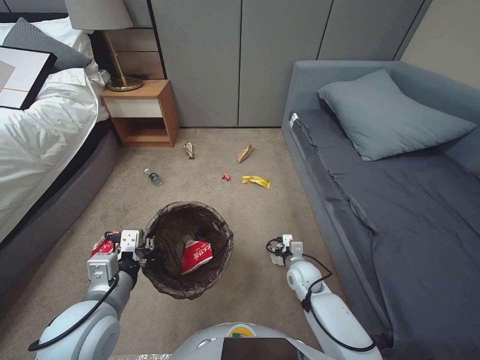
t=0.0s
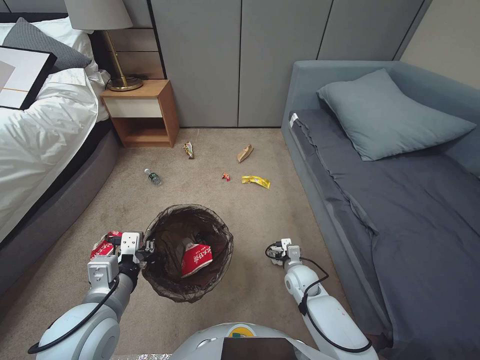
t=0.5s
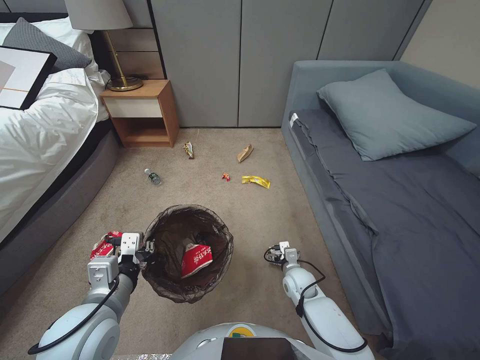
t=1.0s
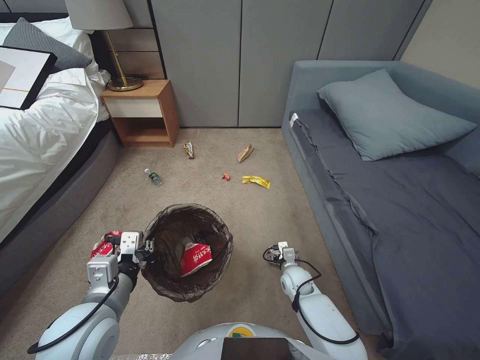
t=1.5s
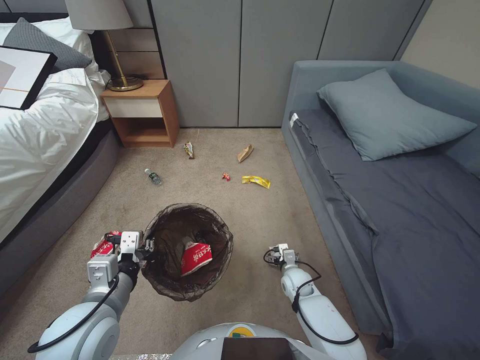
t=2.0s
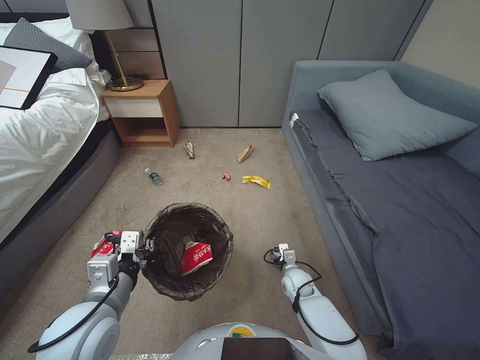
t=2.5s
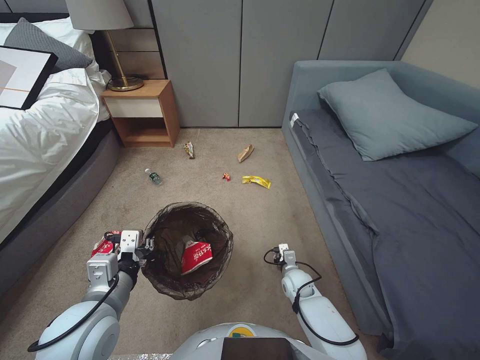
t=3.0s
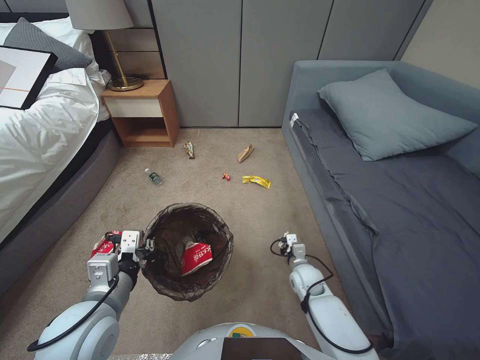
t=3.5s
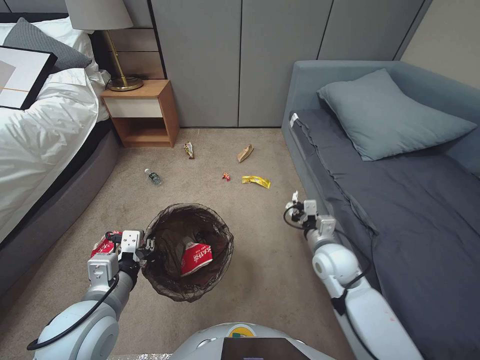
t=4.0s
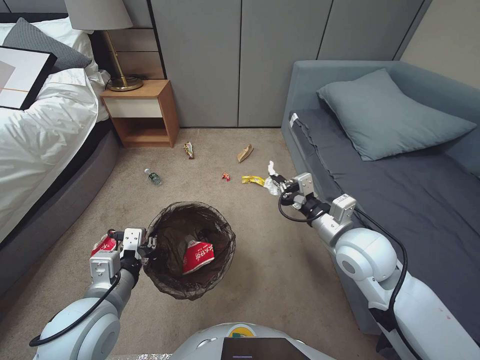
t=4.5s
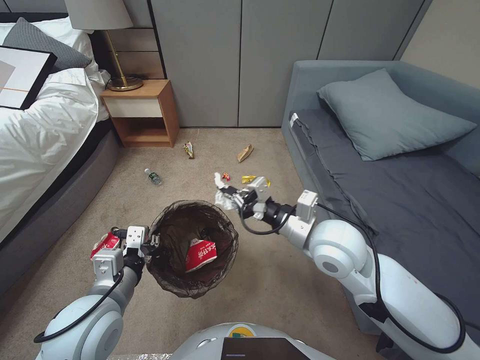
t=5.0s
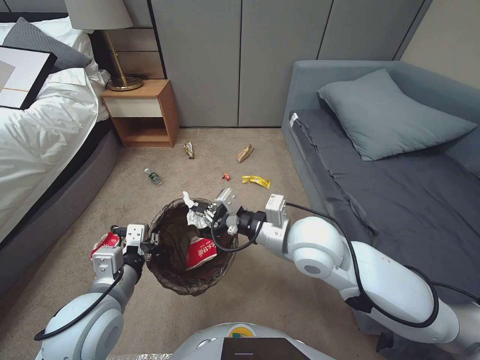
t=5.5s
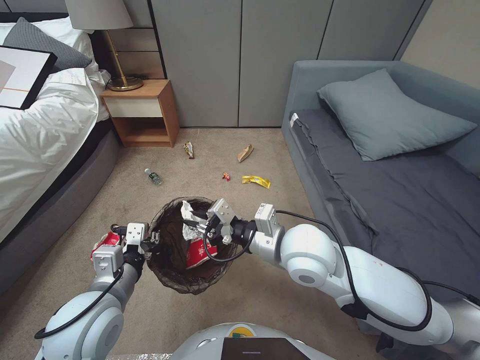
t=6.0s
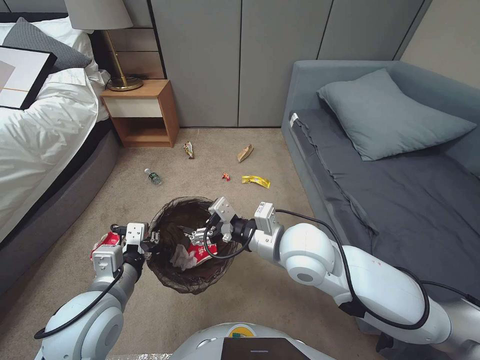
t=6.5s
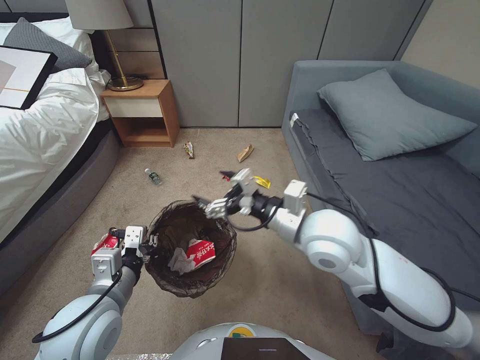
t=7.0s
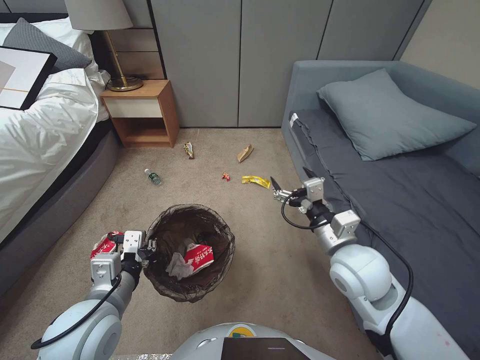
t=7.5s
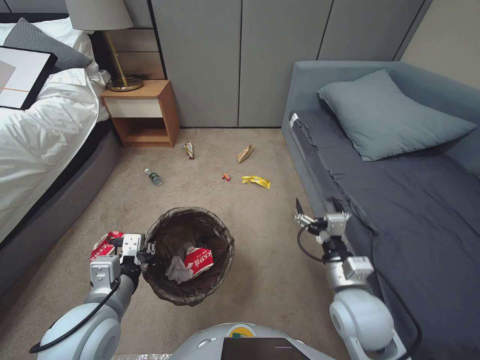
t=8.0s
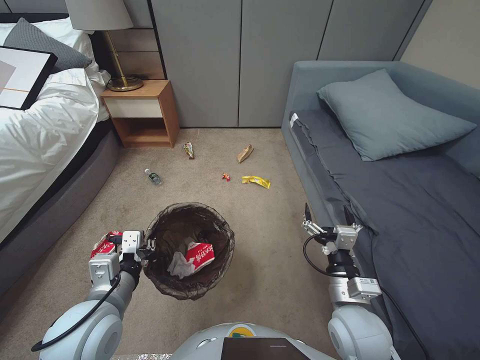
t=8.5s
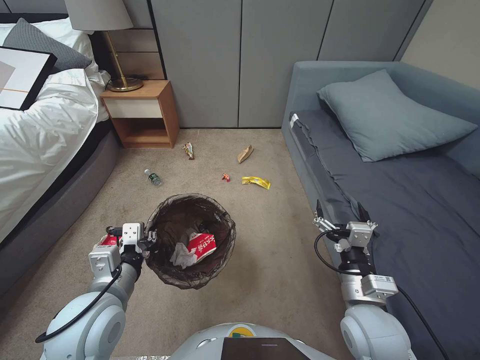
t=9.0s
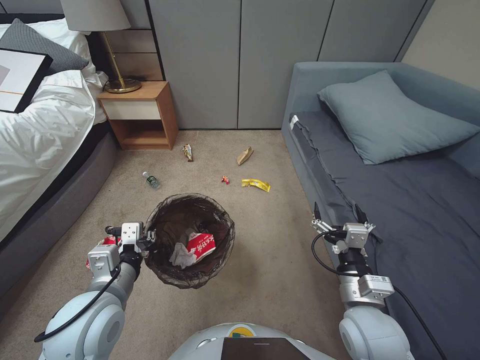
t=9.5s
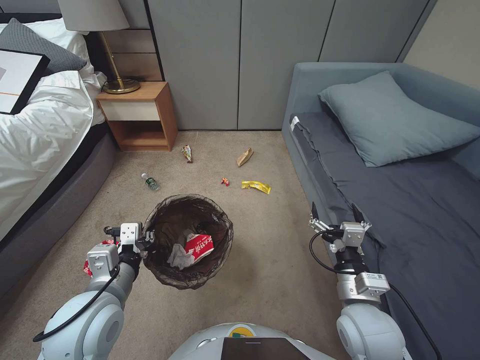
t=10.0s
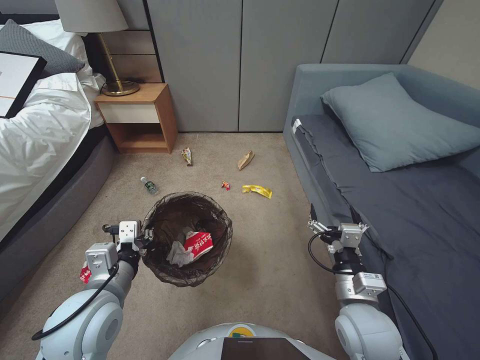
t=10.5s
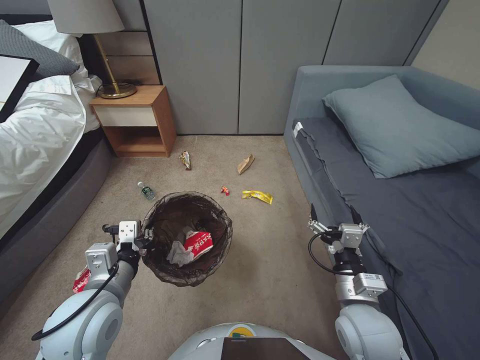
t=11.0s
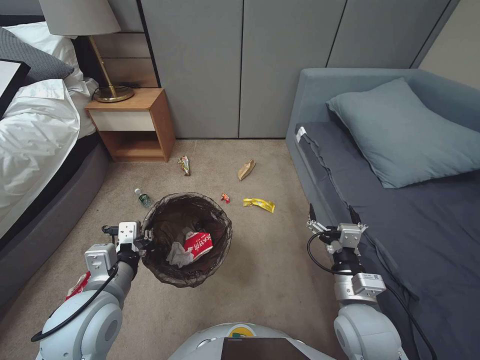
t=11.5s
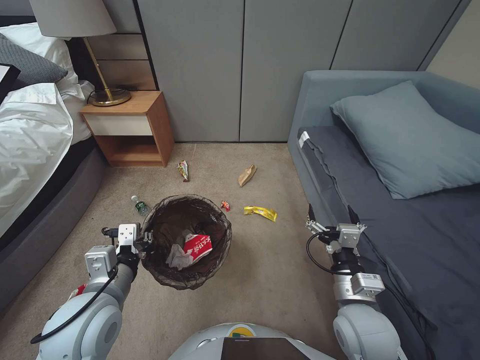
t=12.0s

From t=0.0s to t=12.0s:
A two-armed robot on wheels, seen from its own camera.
Task of the whole recording: Pick up the trash bin, then pick up the garbage from the floor and place it into the trash bin.
From t=0.0s to t=2.0s: The right gripper is displaced downward by roughly 5 cm.
From t=2.0s to t=4.0s: The right gripper heads upward, covering roughly 20 cm, and closes.
From t=4.0s to t=6.0s: The right gripper heads upward and to the left, covering approximately 20 cm.
From t=6.0s to t=8.0s: The right gripper goes roughly 15 cm to the right, downward and backward, and opens its fingers.
From t=8.0s to t=10.0s: The grippers make only small movements.

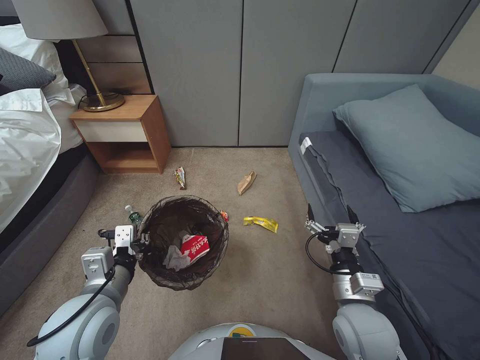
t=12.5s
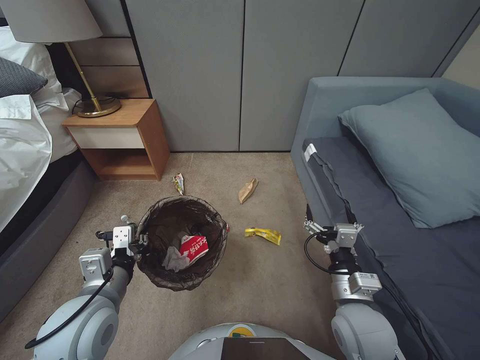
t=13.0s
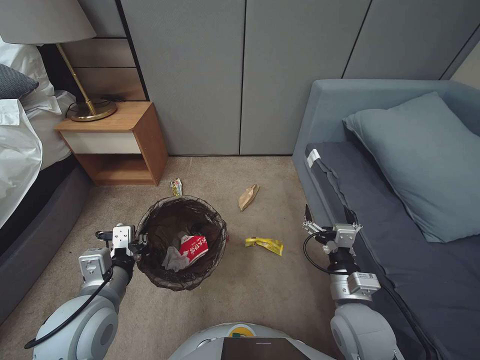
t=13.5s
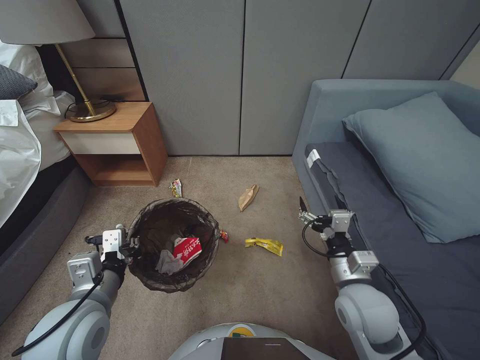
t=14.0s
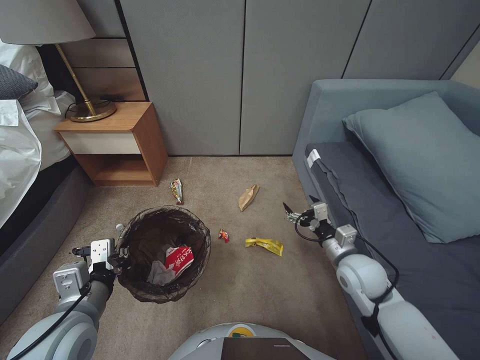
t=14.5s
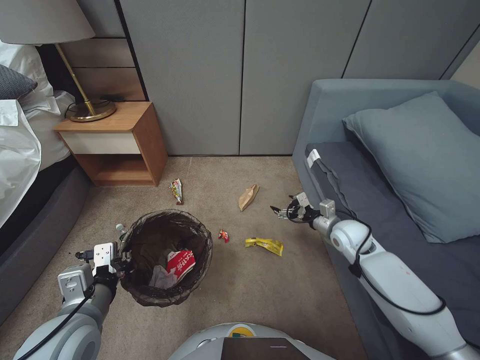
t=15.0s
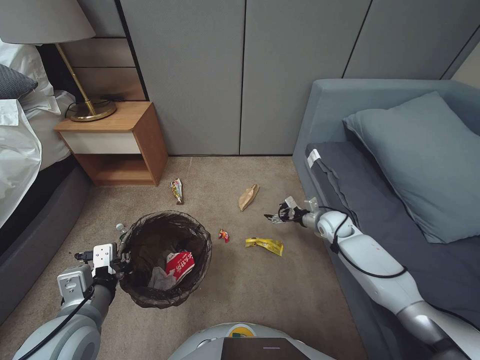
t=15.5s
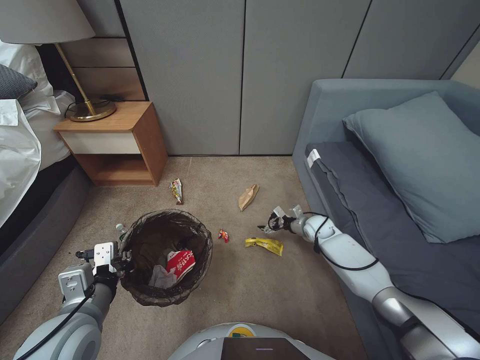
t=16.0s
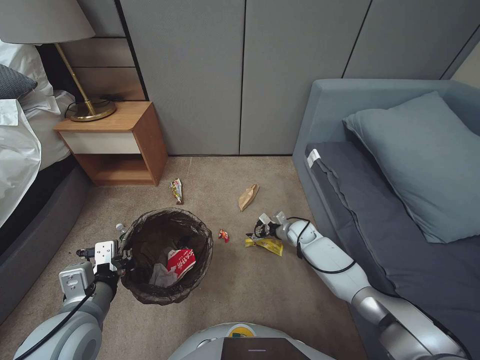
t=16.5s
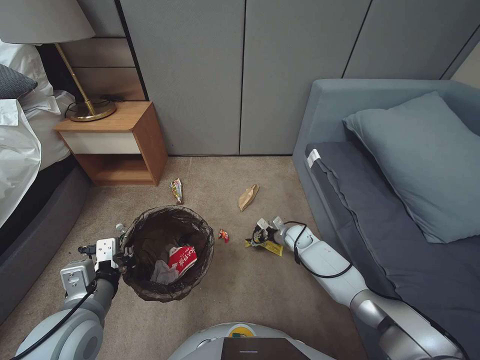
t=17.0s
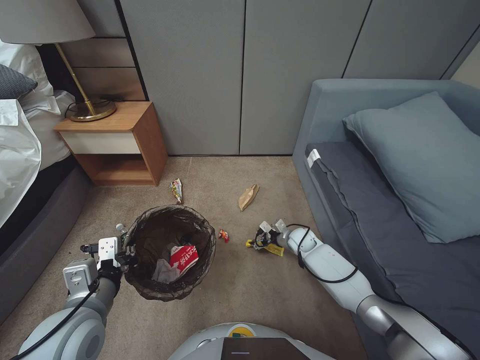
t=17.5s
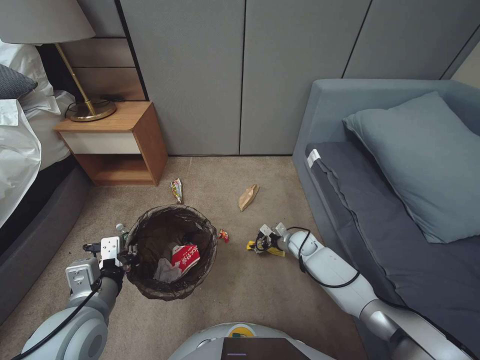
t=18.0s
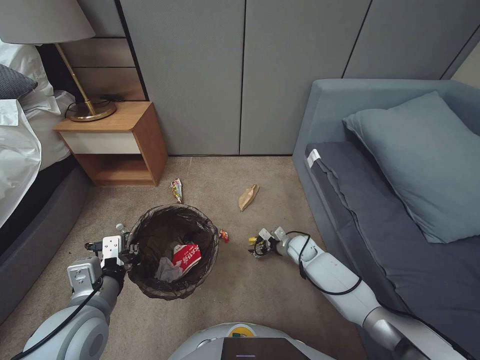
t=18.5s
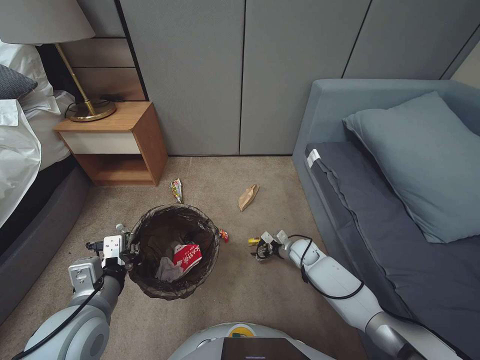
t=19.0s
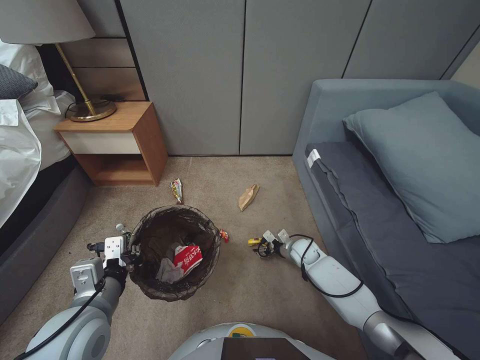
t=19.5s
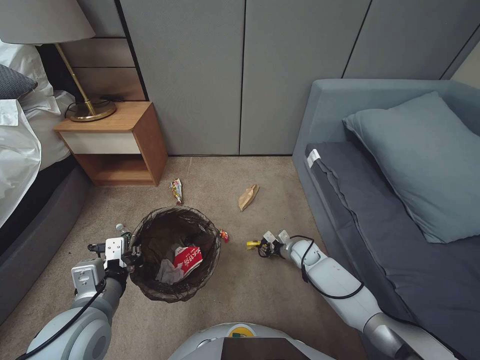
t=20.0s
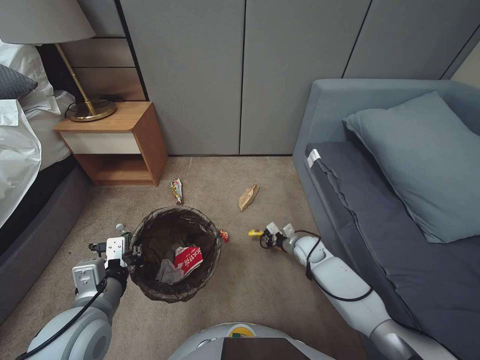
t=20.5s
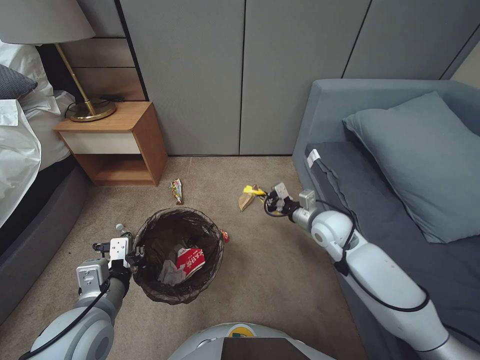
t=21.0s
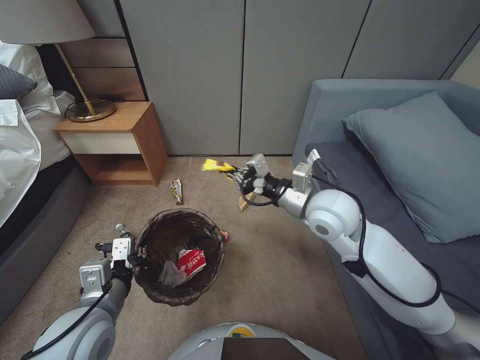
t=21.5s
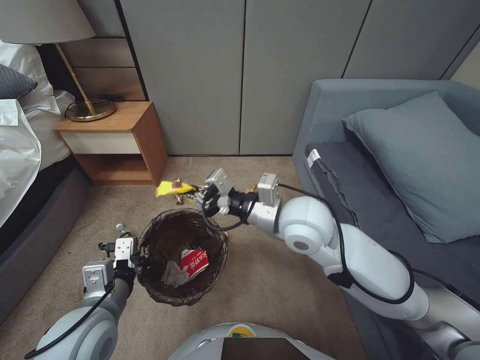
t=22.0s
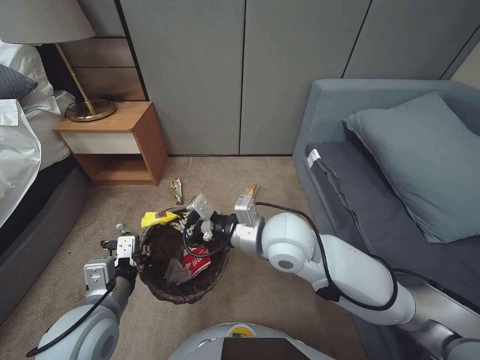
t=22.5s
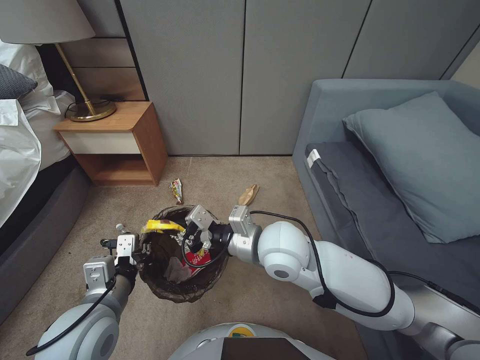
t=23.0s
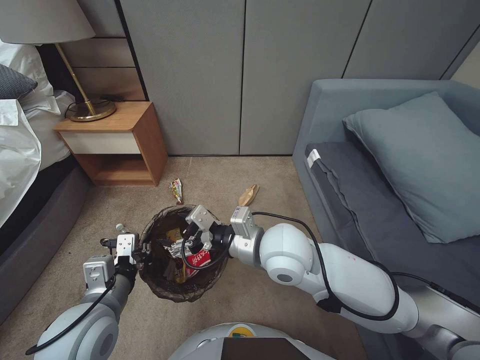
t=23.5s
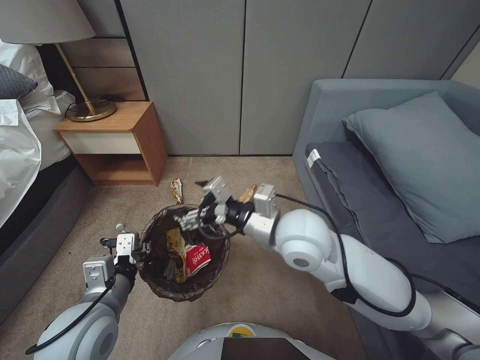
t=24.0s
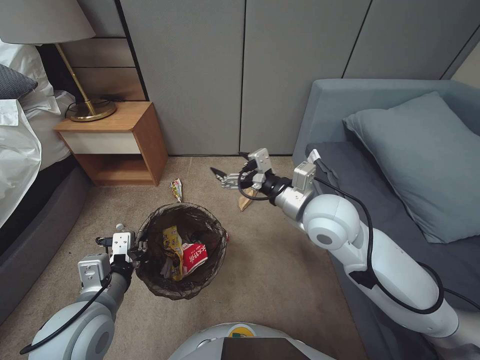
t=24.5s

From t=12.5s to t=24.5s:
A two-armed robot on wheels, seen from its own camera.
Task of the whole recording: Pick up the trash bin, then pick up the garbage from the floor and place it into the trash bin.
From t=12.5s to t=14.5s: The right gripper heads forward, covering approximately 10 cm.
From t=14.5s to t=16.5s: The right gripper moves forward and downward, roughly 25 cm.
From t=16.5s to t=18.5s: The right gripper changes place by about 5 cm.
From t=18.5s to t=20.5s: The right gripper closes.
From t=20.5s to t=22.5s: The right gripper moves upward and to the left, about 40 cm.
From t=22.5s to t=24.5s: The right gripper travels to the right by some 5 cm, and opens its fingers.

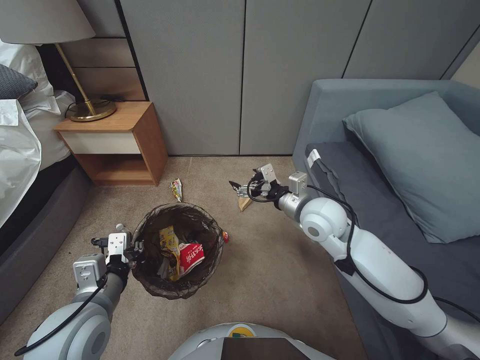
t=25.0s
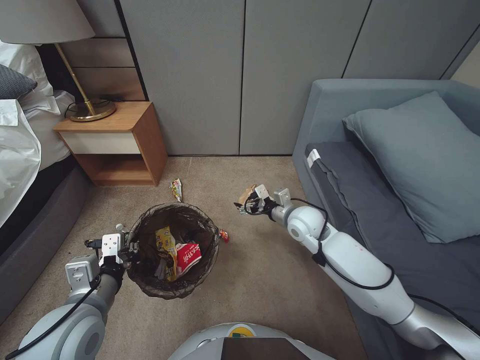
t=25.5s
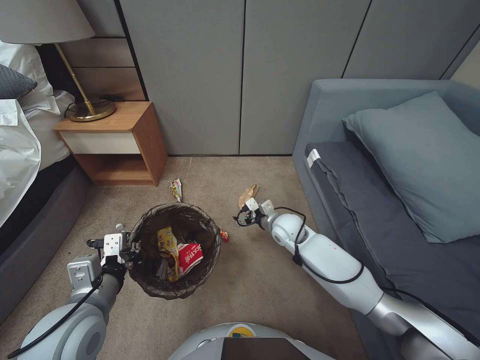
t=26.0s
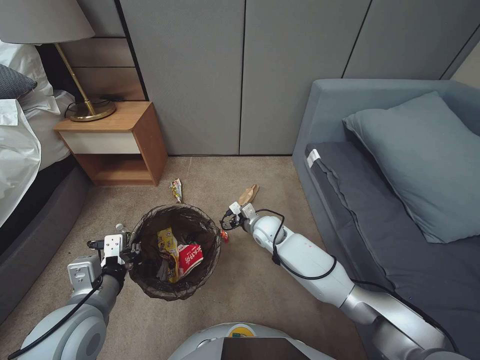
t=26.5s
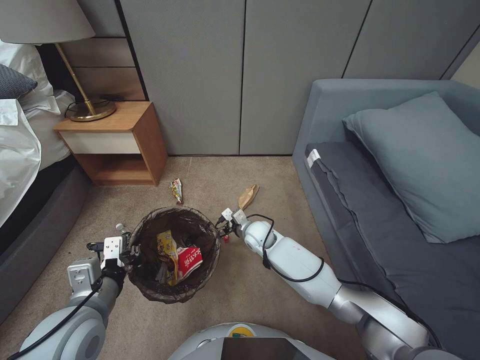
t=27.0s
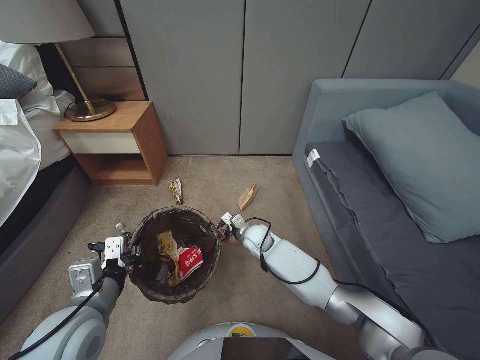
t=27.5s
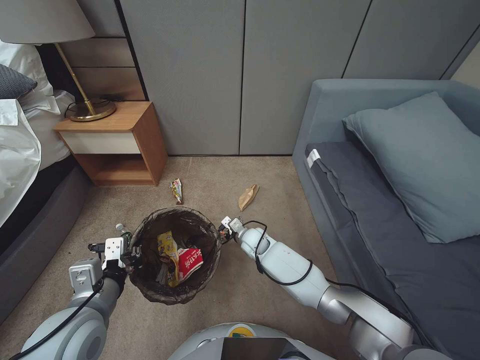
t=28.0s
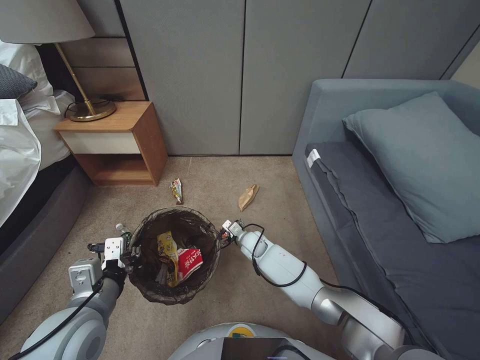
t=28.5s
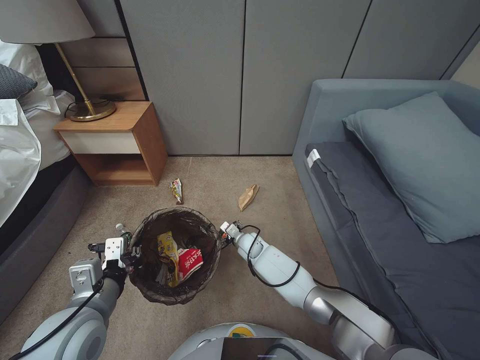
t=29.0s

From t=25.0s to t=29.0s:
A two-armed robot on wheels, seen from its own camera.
Task of the whole recording: Pick up the trash bin, then pick up the garbage from the floor and place it into the trash bin.
From t=25.0s to t=27.0s: The right gripper shifts some 25 cm downward and to the left.
From t=27.0s to t=29.0s: The right gripper goes approximately 10 cm downward.
